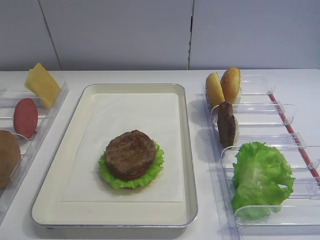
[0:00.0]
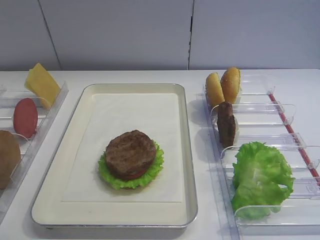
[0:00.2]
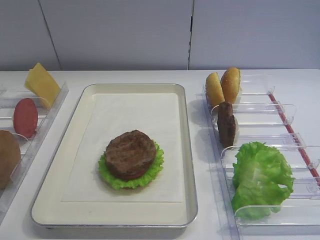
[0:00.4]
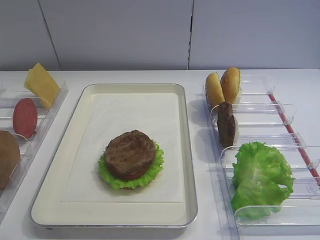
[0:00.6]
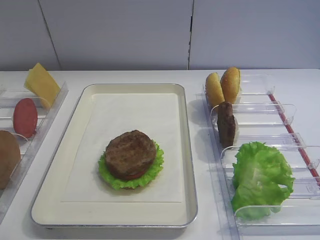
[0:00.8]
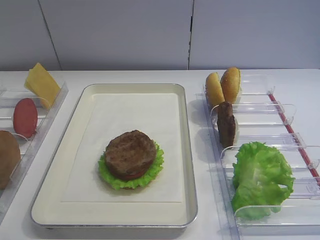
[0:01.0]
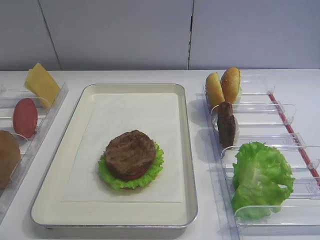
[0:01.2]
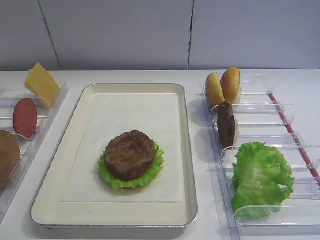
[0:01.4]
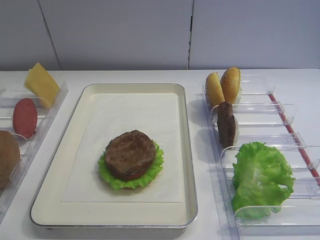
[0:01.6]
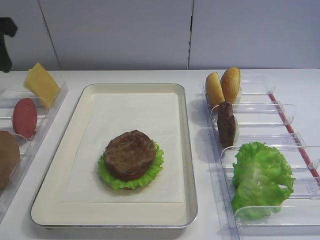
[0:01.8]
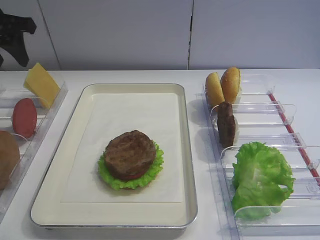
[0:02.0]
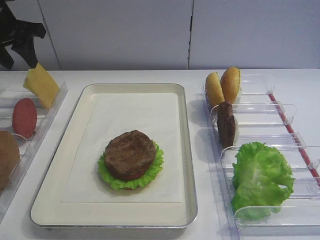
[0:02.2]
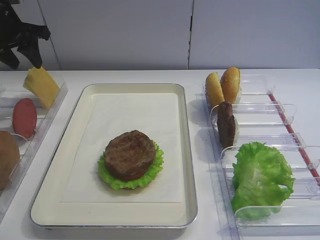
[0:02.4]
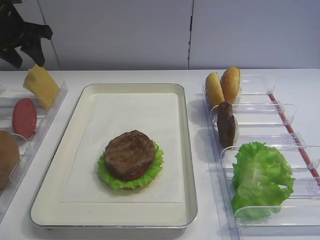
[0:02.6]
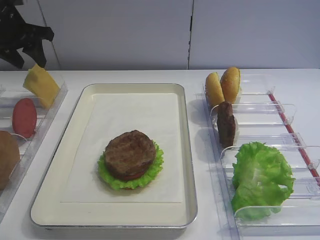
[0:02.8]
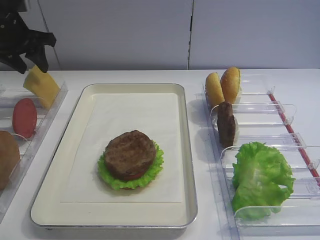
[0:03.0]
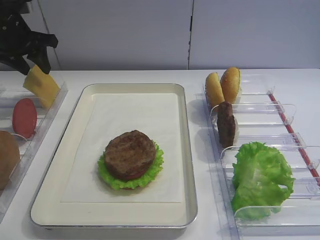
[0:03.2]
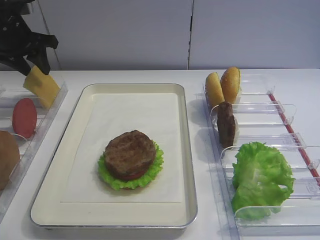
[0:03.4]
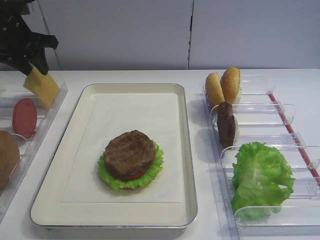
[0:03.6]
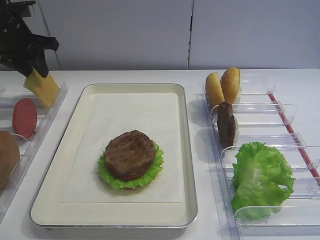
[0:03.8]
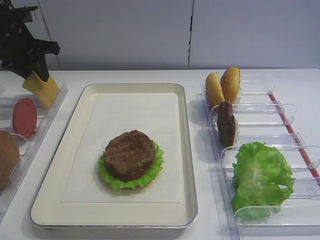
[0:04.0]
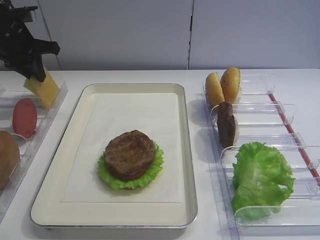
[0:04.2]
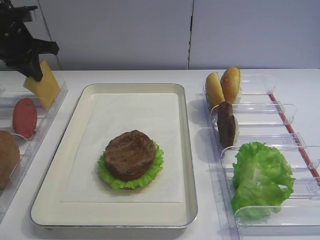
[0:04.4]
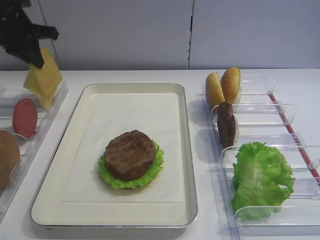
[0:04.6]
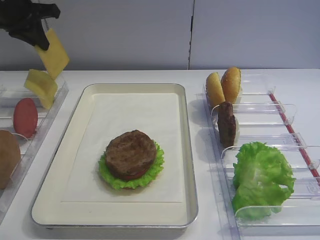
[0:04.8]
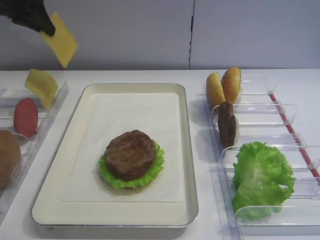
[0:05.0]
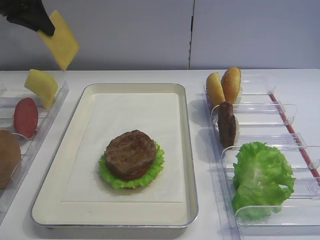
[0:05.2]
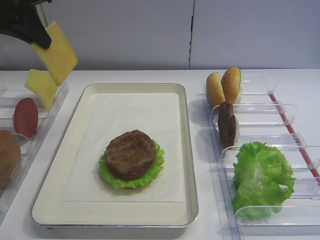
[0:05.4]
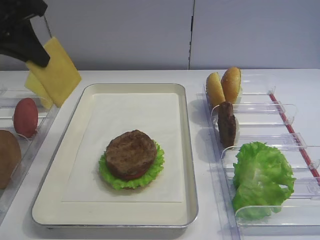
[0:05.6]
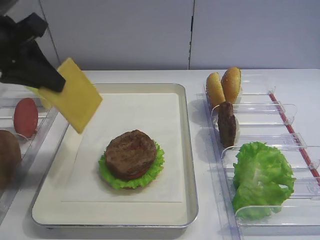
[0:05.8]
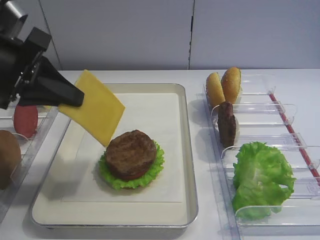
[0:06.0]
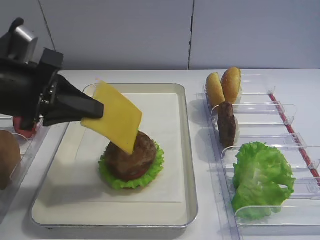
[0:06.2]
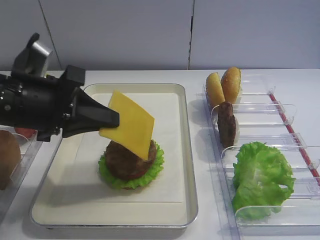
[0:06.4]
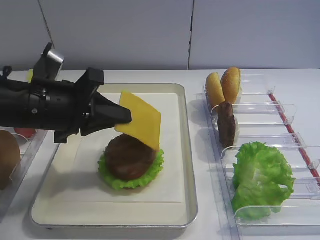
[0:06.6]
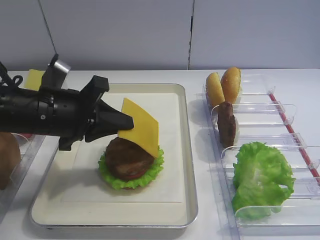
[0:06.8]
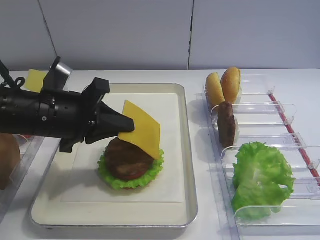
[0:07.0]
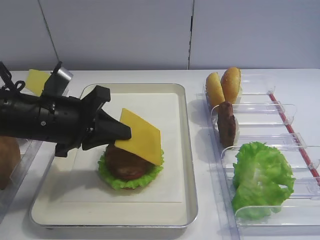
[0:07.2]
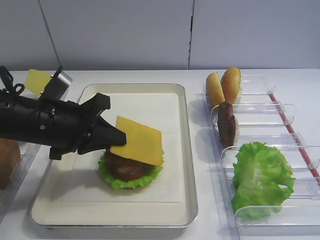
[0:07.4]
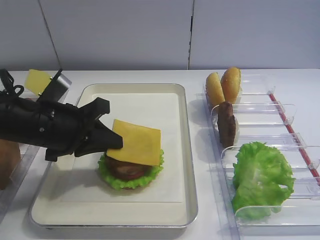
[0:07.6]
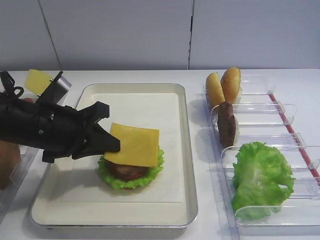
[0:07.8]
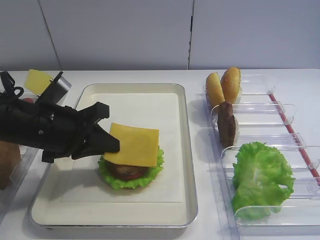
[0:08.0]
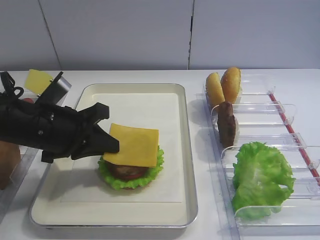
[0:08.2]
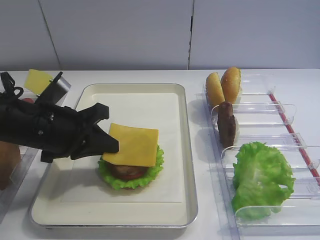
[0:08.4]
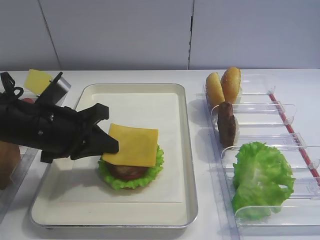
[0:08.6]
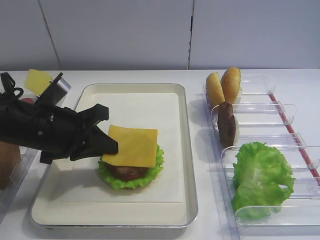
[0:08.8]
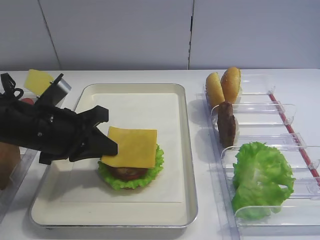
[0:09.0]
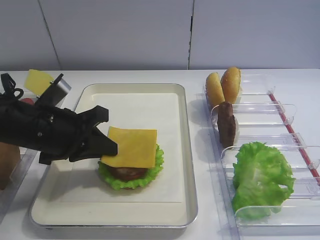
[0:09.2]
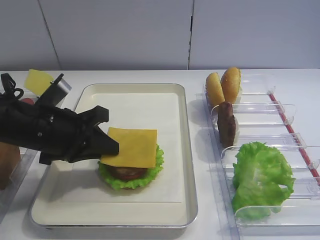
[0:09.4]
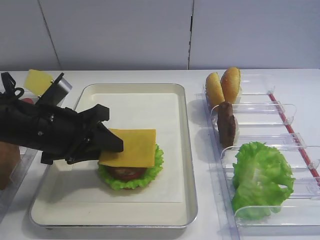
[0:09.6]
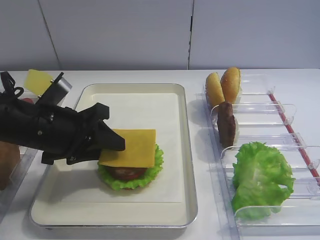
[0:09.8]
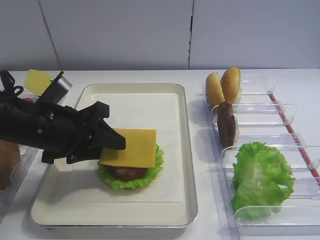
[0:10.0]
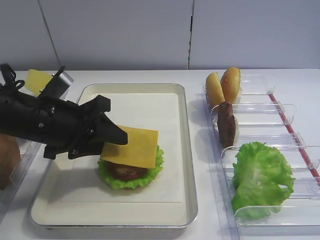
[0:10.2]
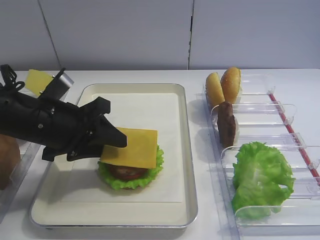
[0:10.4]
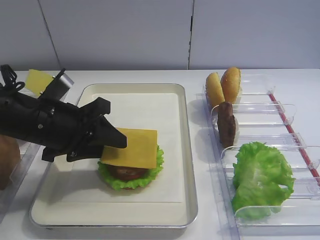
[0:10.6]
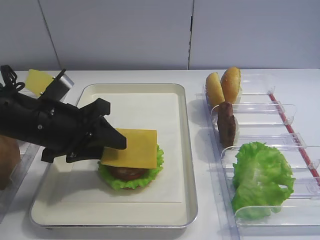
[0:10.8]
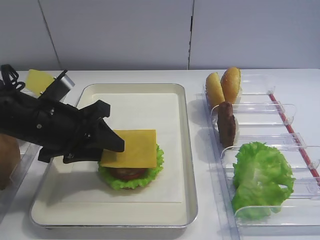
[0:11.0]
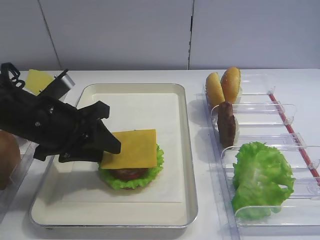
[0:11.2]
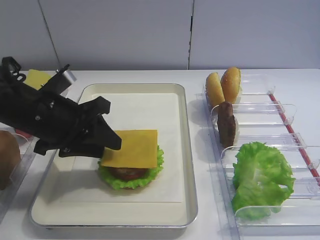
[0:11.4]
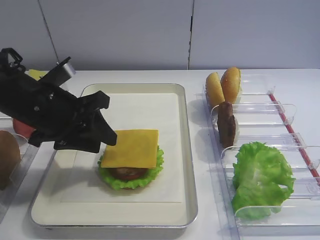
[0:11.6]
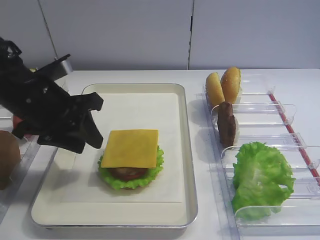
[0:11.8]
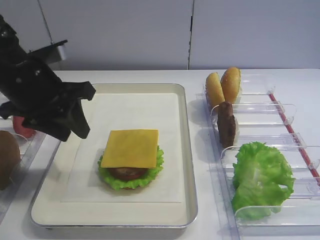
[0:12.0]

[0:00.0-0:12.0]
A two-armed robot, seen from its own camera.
Step, 0:00.0 to 0:04.6: Pick up the cheese slice with the left gripper.
Step, 0:04.8 to 0:11.8: Place the cheese slice on the cutlet with the left gripper.
0:01.6 to 0:03.0: The left gripper is displaced forward and downward by approximately 20 cm.
0:03.0 to 0:04.4: The left gripper closes.
0:04.4 to 0:06.0: The left gripper heads backward, covering roughly 20 cm.
0:06.0 to 0:07.6: The left gripper goes approximately 10 cm downward.
0:07.6 to 0:09.0: Both grippers stay put.
0:09.0 to 0:10.4: The left gripper opens up.
0:10.4 to 0:12.0: The left gripper goes about 5 cm upward.

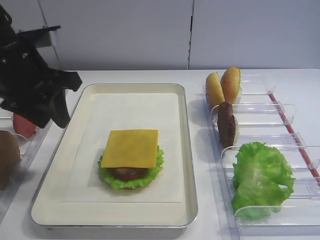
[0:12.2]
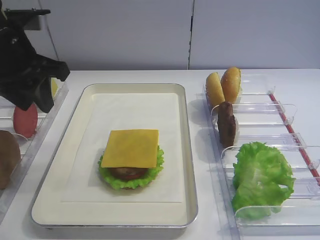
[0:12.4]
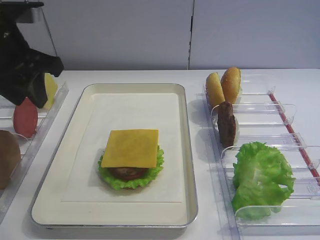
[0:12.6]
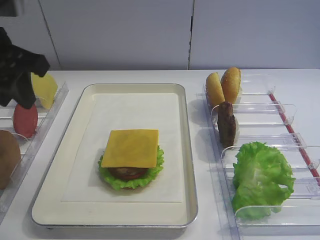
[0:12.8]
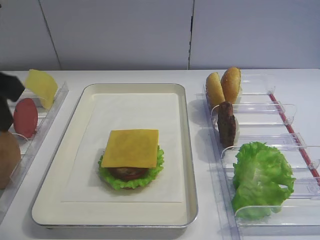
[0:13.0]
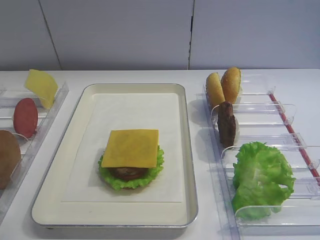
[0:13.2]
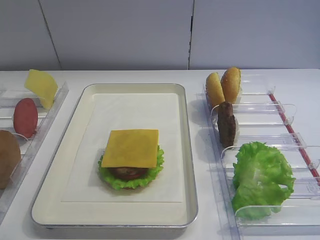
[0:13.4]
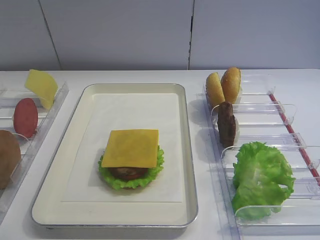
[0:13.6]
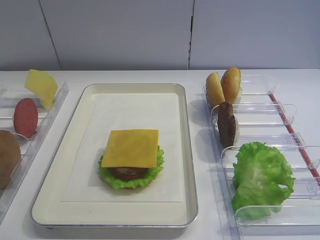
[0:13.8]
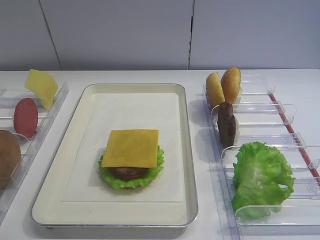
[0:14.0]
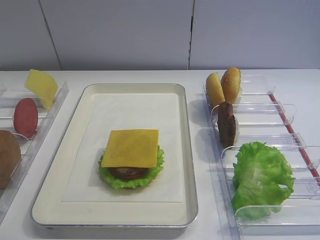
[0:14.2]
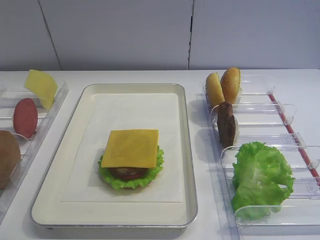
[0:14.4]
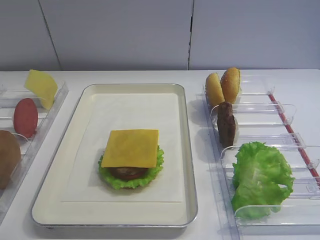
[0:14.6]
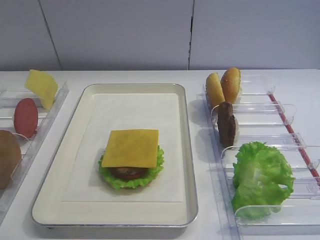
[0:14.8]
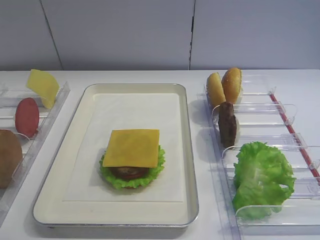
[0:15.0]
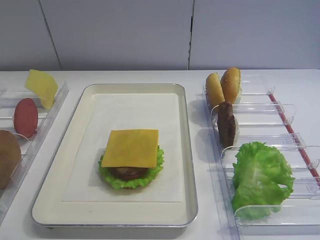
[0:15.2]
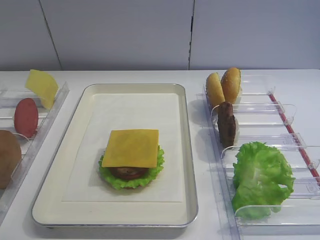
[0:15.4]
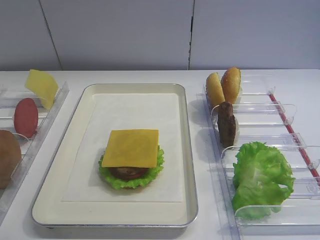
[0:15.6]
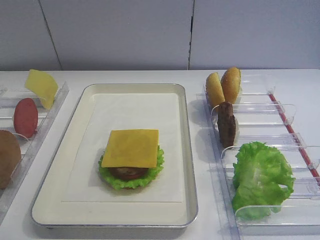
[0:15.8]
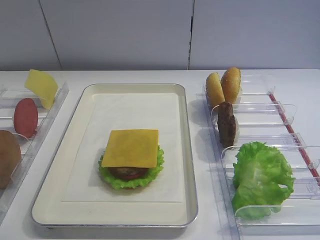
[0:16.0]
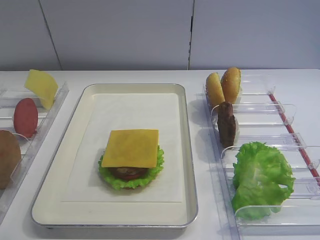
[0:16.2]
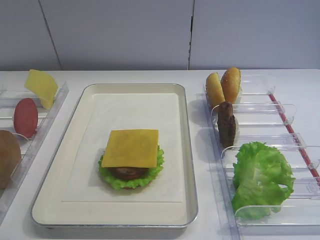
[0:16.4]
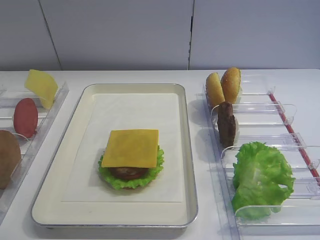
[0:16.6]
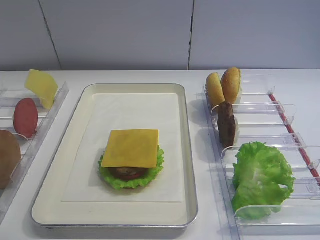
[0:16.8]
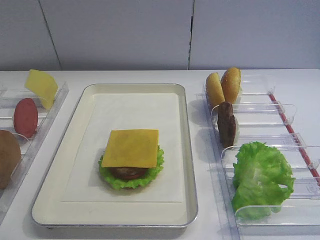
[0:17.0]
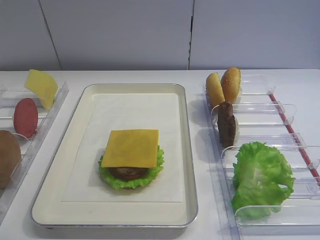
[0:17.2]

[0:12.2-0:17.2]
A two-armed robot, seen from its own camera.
0:12.2 to 0:13.8: The left gripper moves backward, approximately 25 cm.
0:15.6 to 0:17.2: Both grippers stay put.

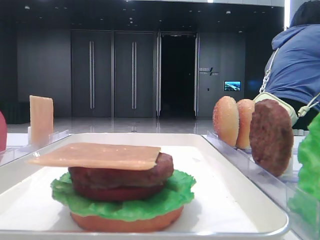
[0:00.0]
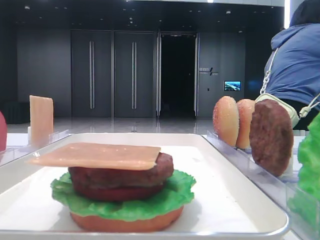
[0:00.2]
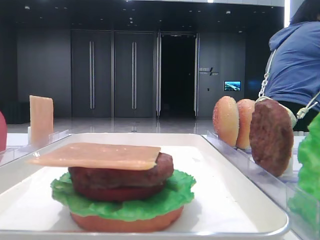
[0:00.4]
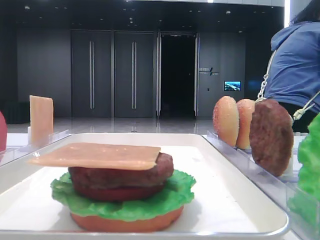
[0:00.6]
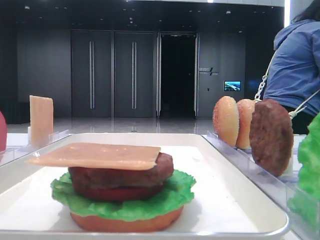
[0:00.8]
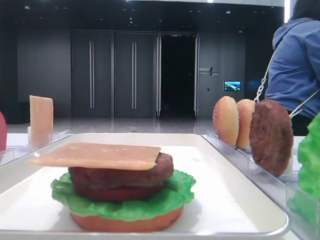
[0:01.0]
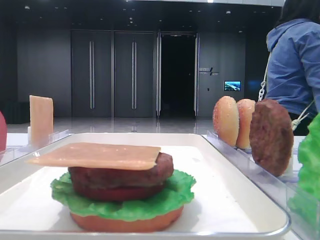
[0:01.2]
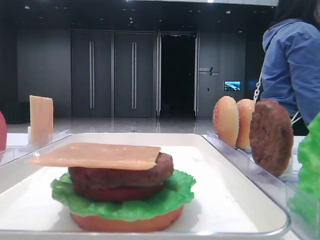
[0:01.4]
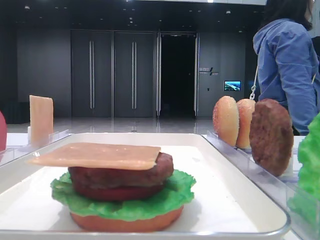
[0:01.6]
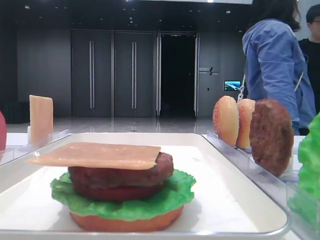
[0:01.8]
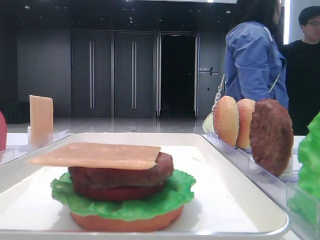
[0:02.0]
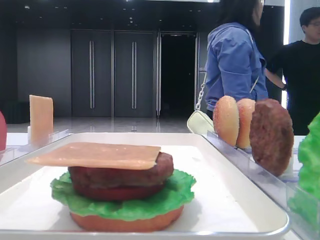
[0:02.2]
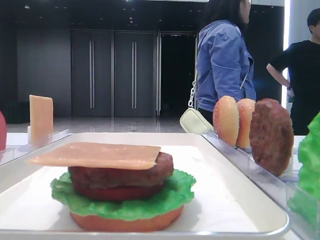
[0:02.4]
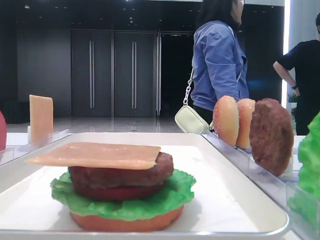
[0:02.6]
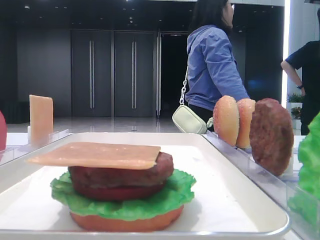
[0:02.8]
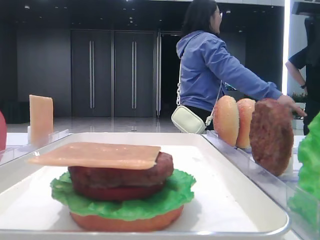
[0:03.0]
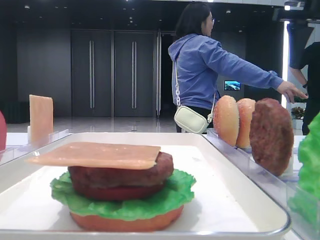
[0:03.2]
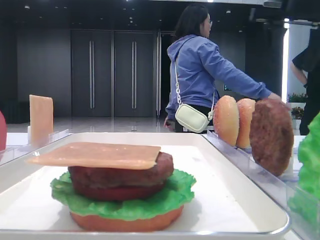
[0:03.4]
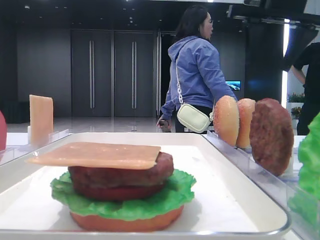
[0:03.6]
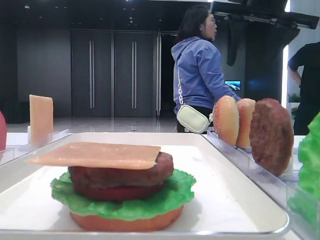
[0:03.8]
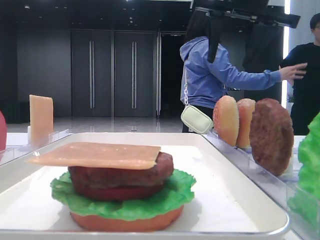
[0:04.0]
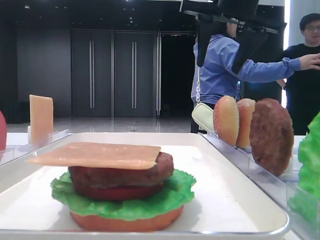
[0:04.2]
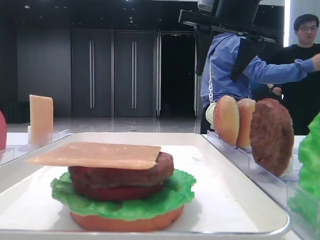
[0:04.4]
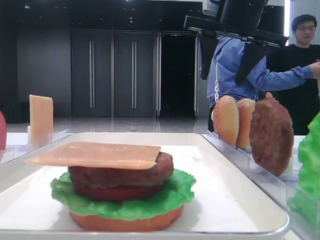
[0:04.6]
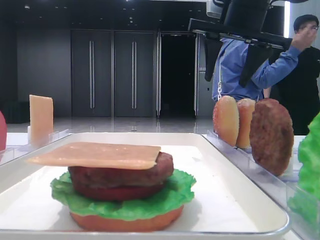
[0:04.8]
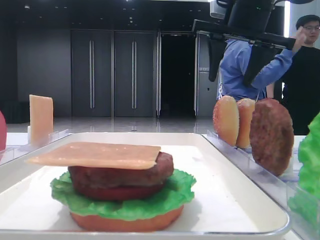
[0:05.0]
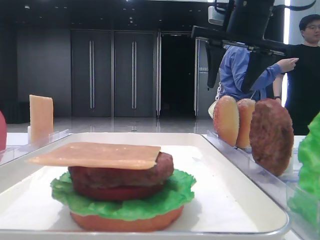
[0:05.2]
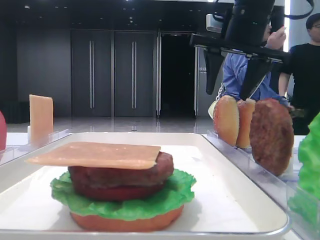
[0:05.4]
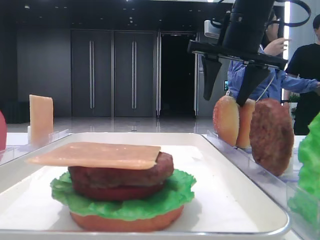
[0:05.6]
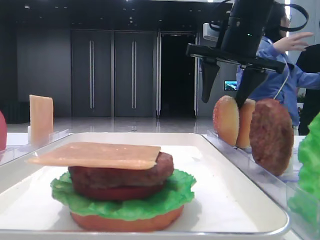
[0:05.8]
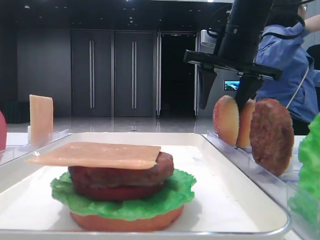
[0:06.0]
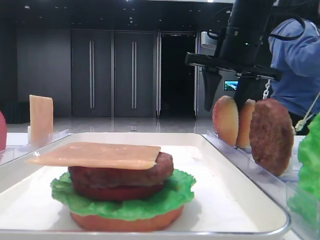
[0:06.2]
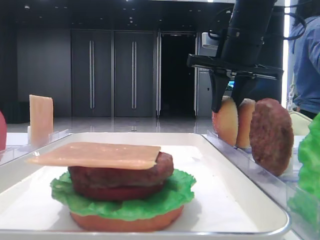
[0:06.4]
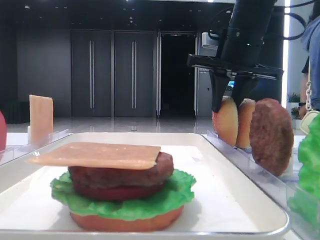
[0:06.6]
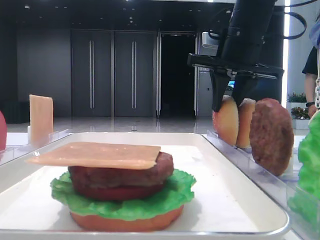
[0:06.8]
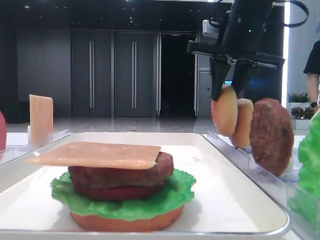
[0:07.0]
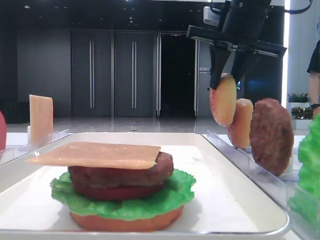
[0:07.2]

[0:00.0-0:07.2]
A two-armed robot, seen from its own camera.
Step, 0:00.0 to 0:06.6: Pick up the top bread slice with the right hand.
0:01.4 to 0:02.8: The right gripper travels forward by some 30 cm.
0:02.8 to 0:04.4: The right gripper heads to the left, covering roughly 15 cm.
0:04.4 to 0:05.8: The right gripper changes place by roughly 5 cm.
0:05.8 to 0:07.2: The right gripper closes.
